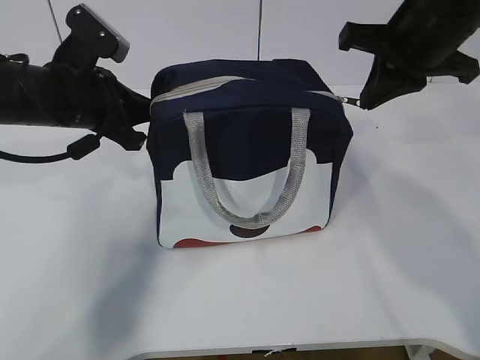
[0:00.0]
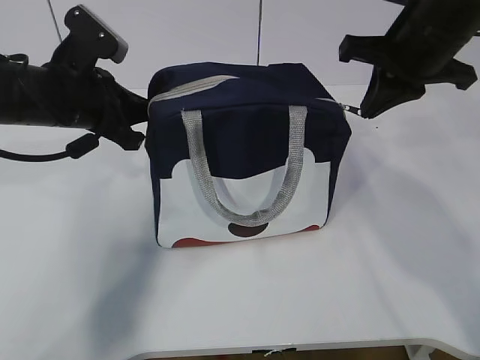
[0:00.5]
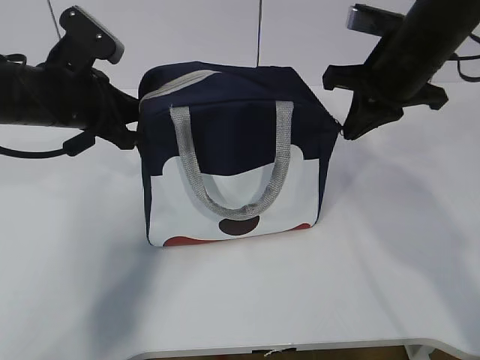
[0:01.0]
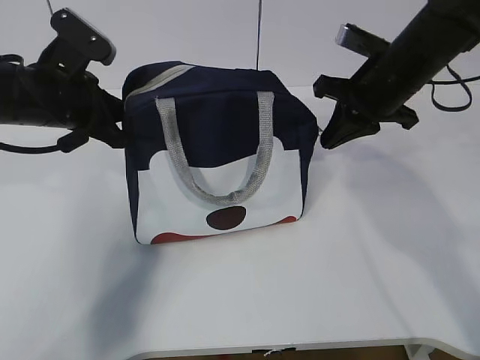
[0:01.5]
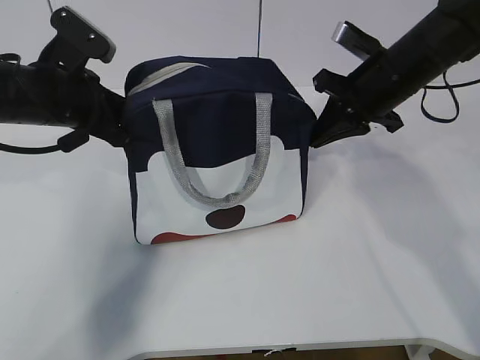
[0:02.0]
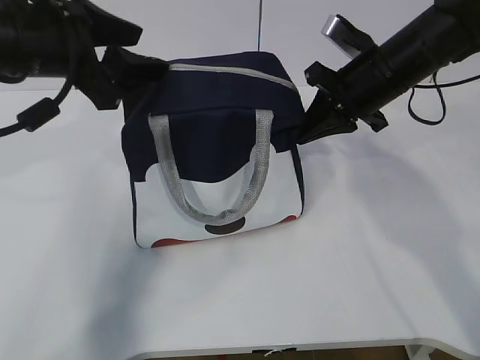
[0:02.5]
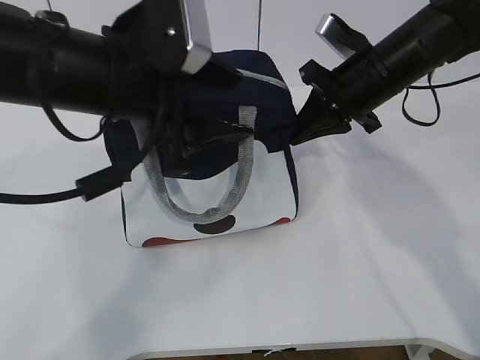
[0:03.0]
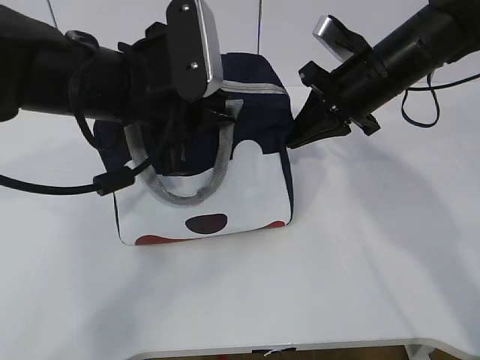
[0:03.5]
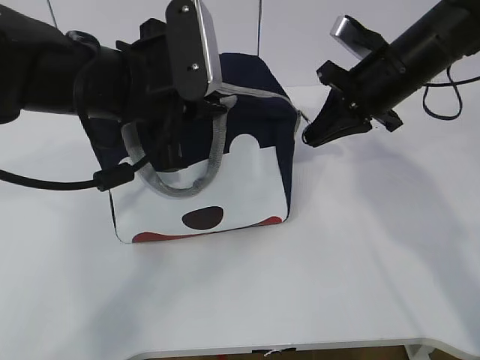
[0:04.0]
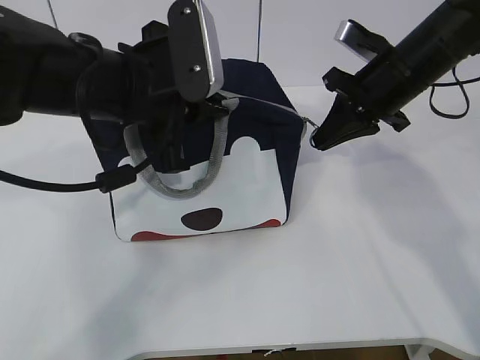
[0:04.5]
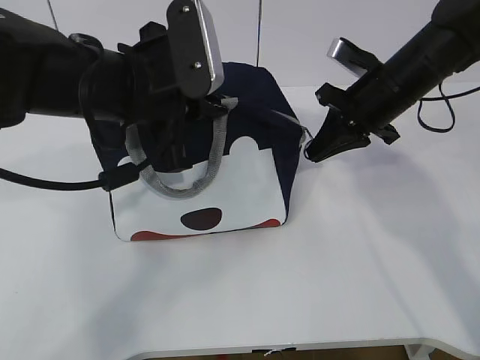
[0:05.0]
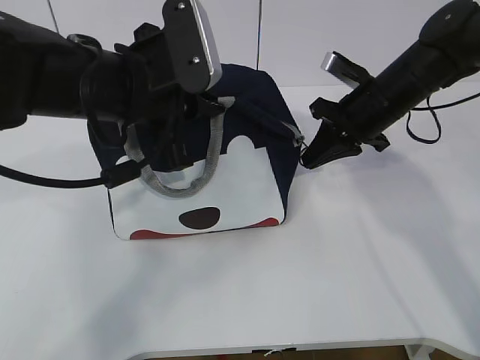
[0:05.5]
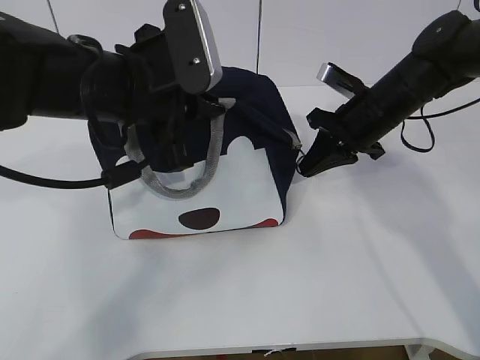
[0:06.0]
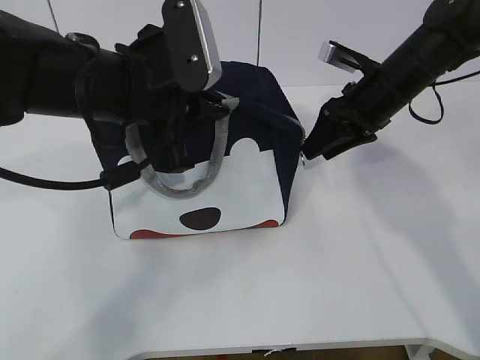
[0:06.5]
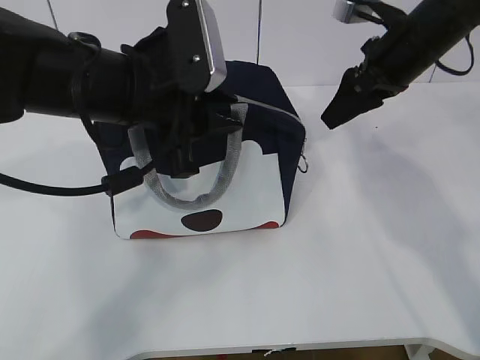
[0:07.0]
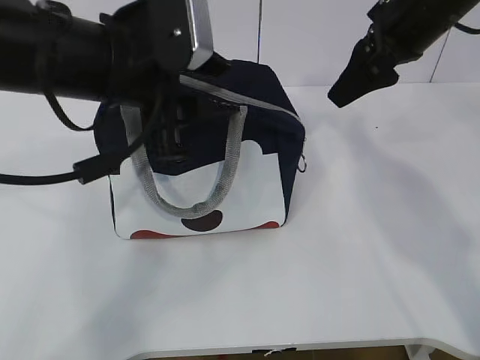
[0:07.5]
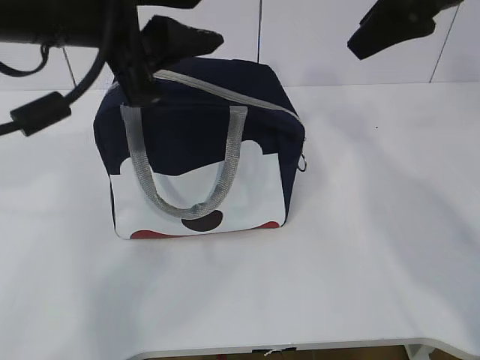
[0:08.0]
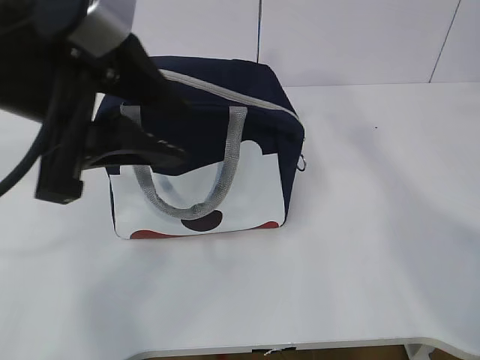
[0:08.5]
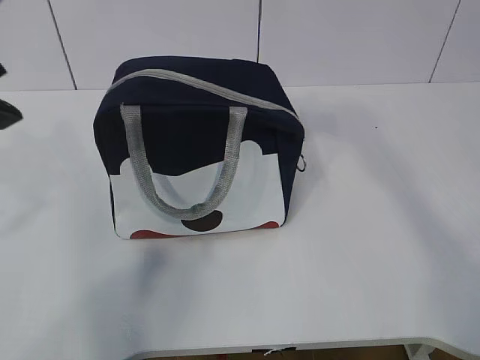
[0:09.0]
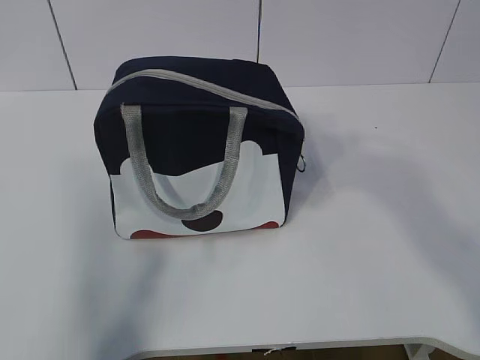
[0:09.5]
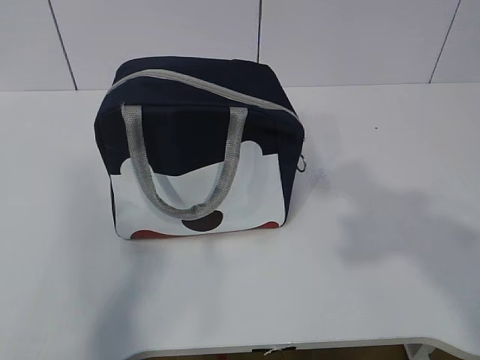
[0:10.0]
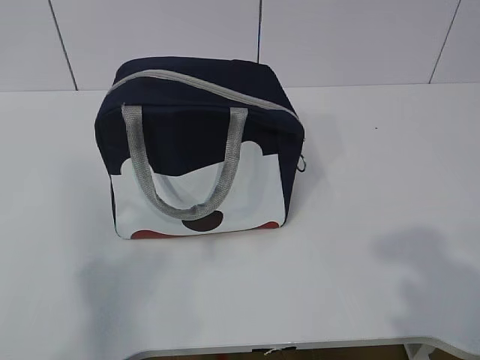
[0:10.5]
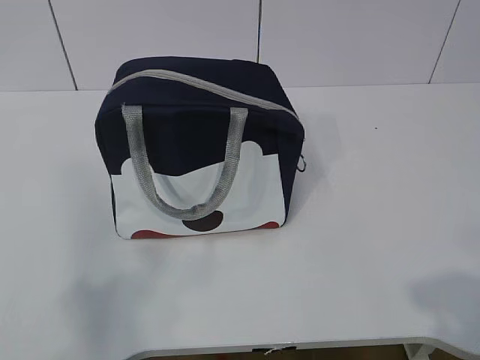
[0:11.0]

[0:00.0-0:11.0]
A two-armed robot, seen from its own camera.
0:00.0 to 0:02.0: The right gripper heads downward and forward, covering about 10 cm.
0:02.0 to 0:03.5: The left gripper travels to the right and backward by roughly 10 cm, and opens, then closes once more.
0:03.5 to 0:05.5: The left gripper closes its fingers, while the right gripper moves approximately 5 cm.
0:05.5 to 0:07.5: The left gripper opens up. Meanwhile the right gripper is displaced upward by some 15 cm, and opens up.
0:07.5 to 0:09.0: The right gripper travels backward and upward by approximately 25 cm. The left gripper goes approximately 15 cm to the left, backward and upward.
0:09.0 to 0:11.0: The left gripper goes some 25 cm backward and to the left, while the right gripper heads backward and downward, covering about 30 cm.
